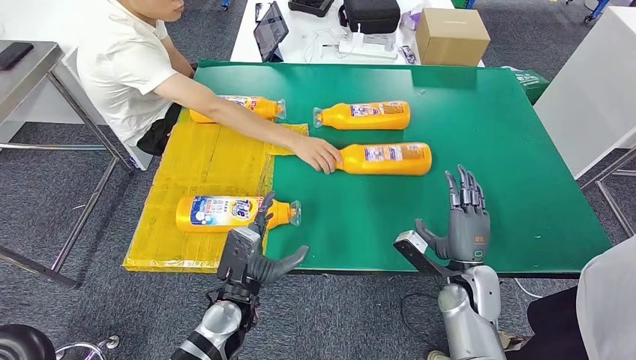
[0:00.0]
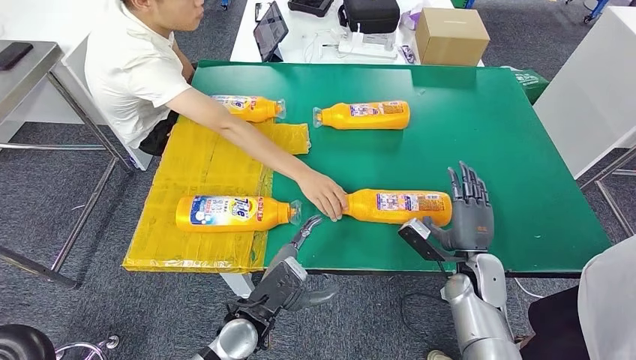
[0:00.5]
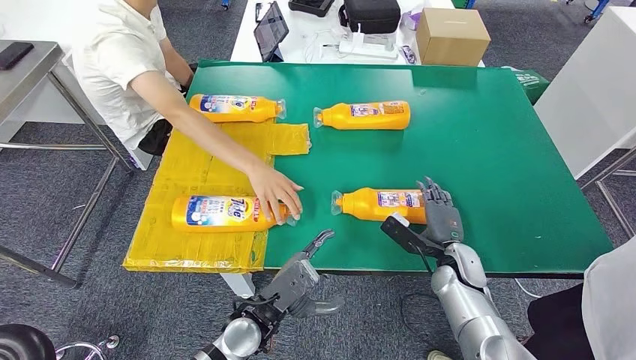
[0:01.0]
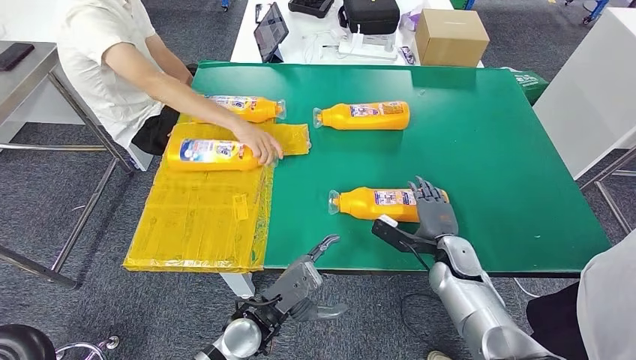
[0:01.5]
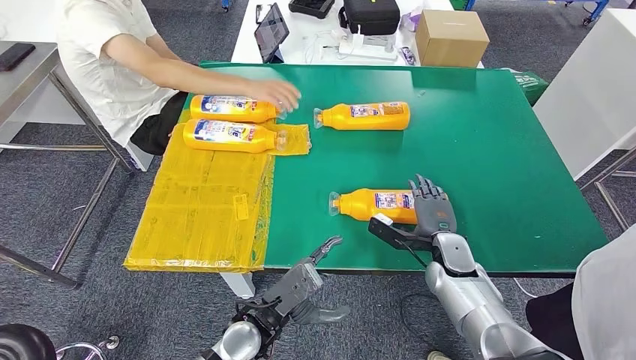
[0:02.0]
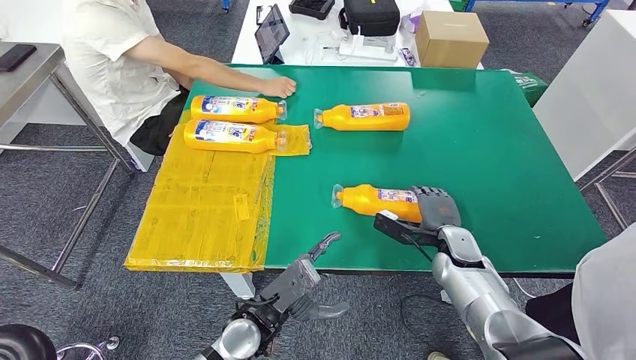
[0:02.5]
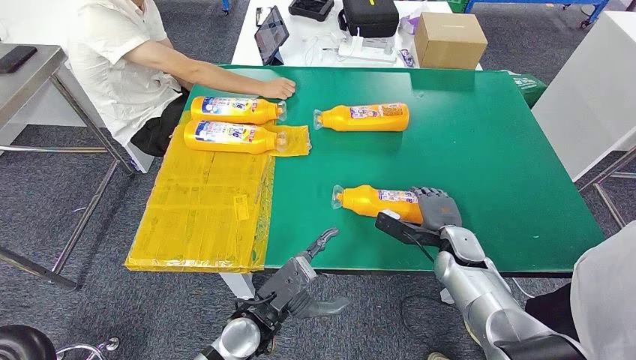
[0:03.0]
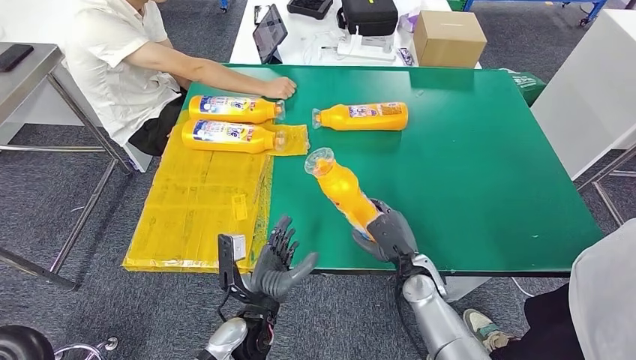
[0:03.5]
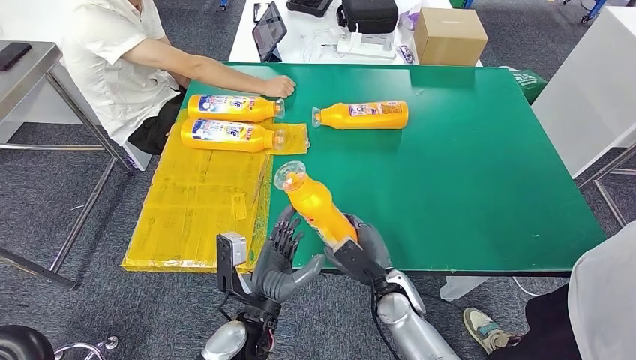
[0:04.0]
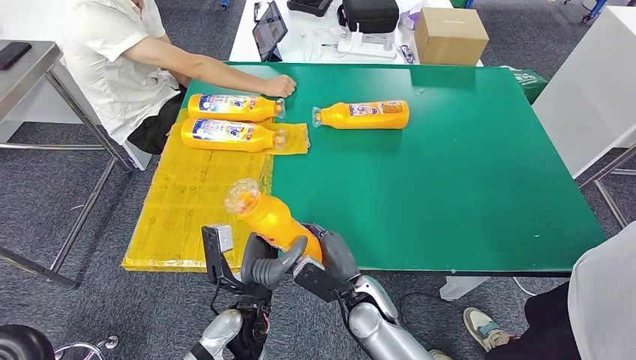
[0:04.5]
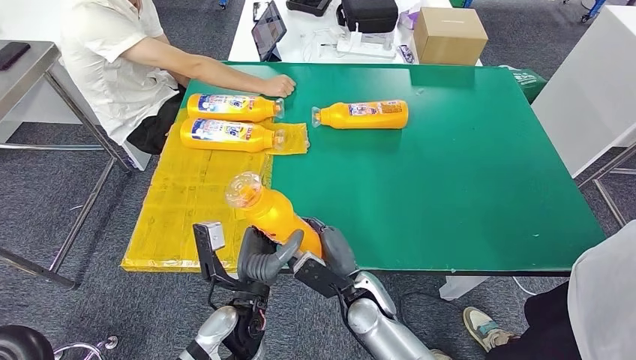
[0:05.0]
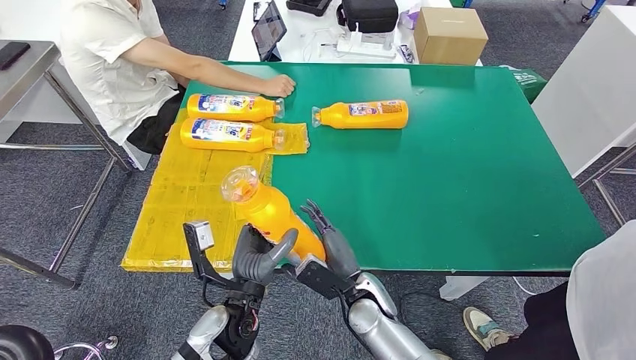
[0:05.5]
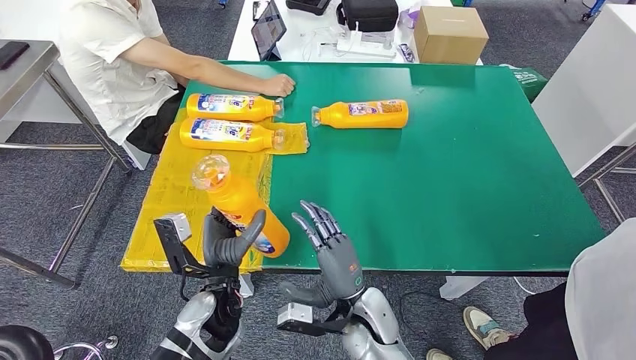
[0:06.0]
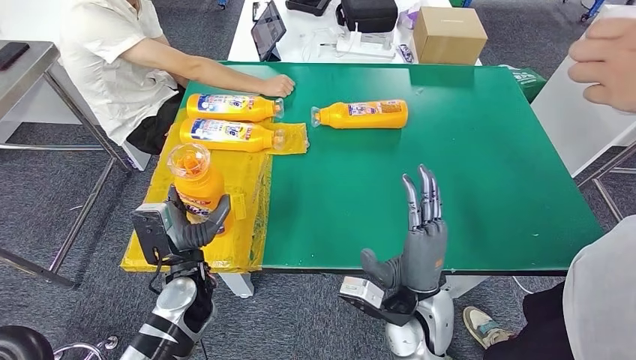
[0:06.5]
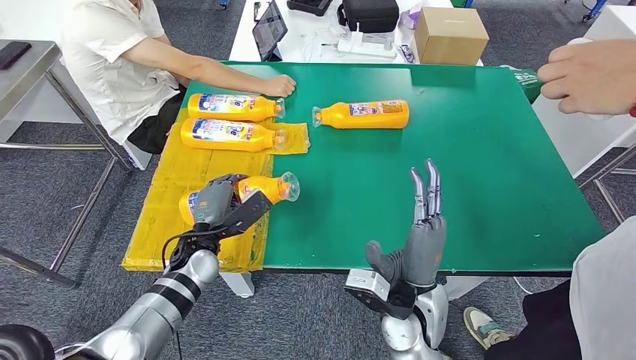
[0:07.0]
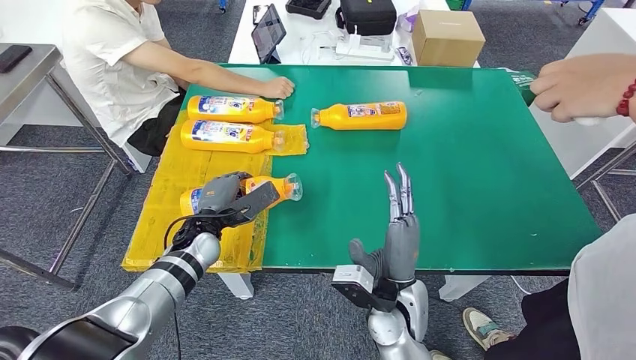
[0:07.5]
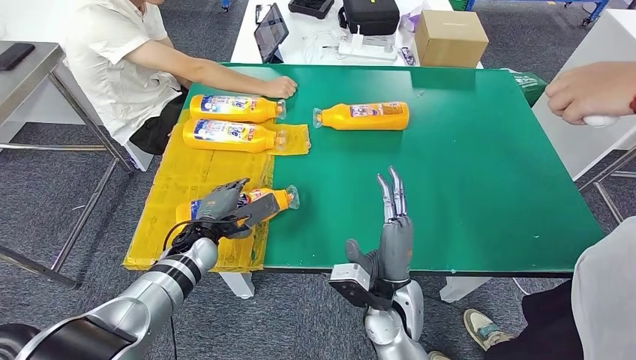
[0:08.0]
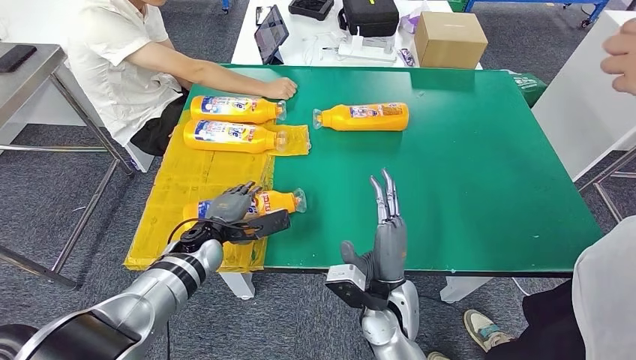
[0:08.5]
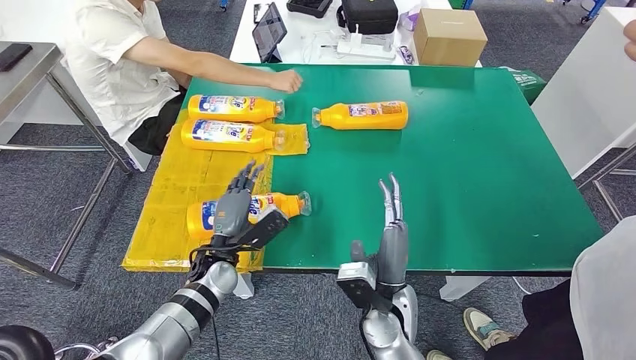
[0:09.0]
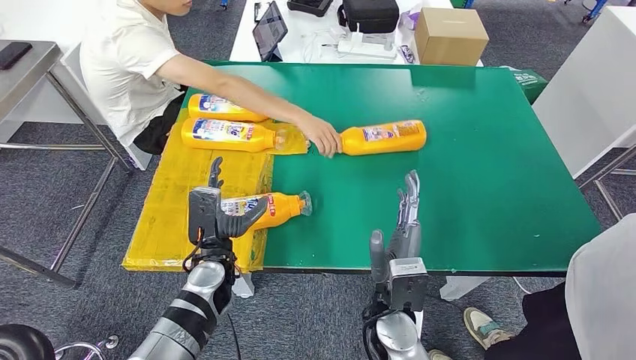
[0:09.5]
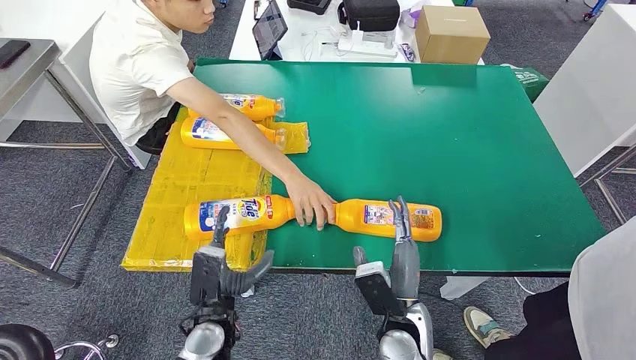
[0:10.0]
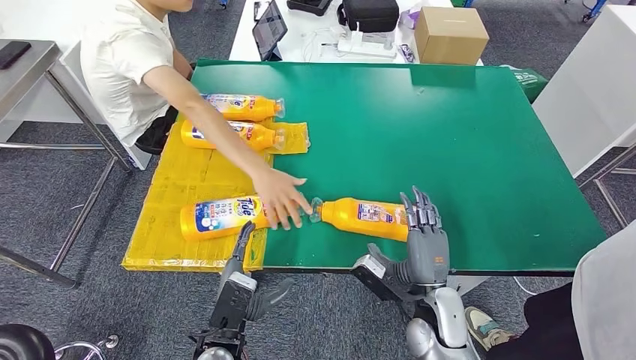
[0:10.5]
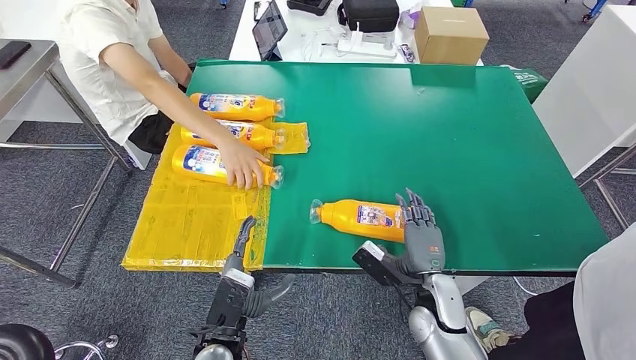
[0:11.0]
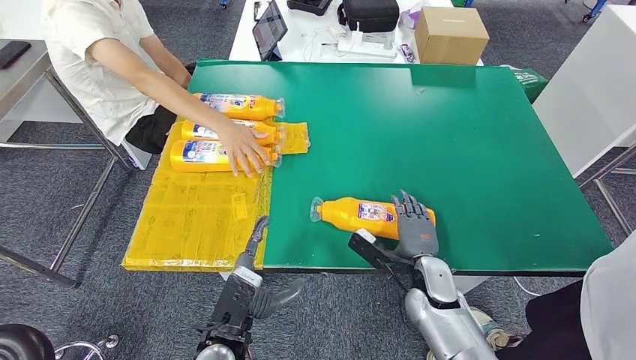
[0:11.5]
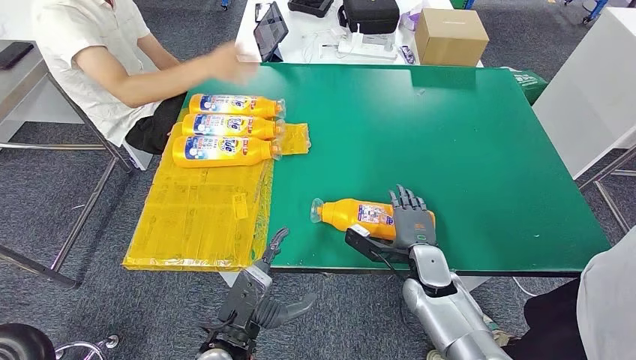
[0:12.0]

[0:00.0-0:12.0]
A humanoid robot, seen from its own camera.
Step, 0:00.0 to 0:05.5: Pick up the bottle from the table.
Step, 0:06.0 to 0:09.5: Flip the bottle to face forward.
0:04.0 to 0:06.0: Both hands travel together to the left, some 5 cm.

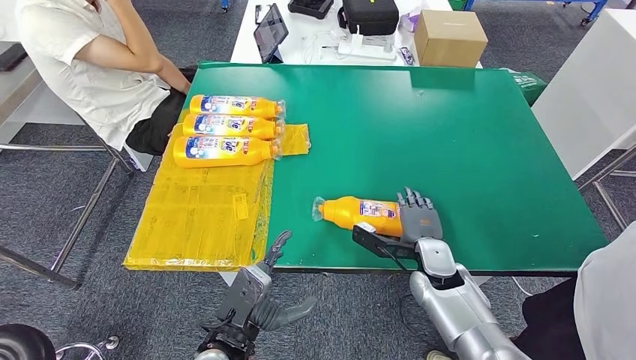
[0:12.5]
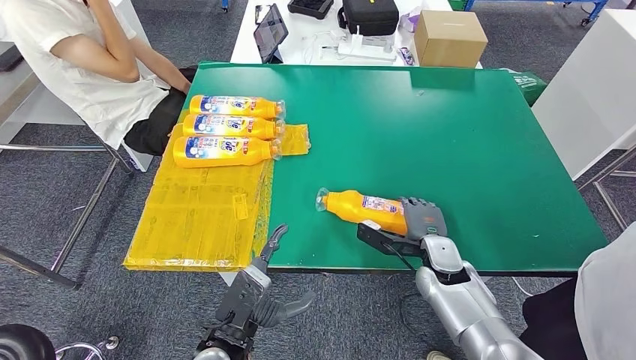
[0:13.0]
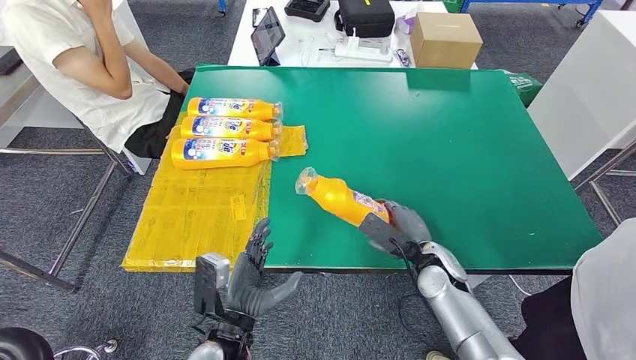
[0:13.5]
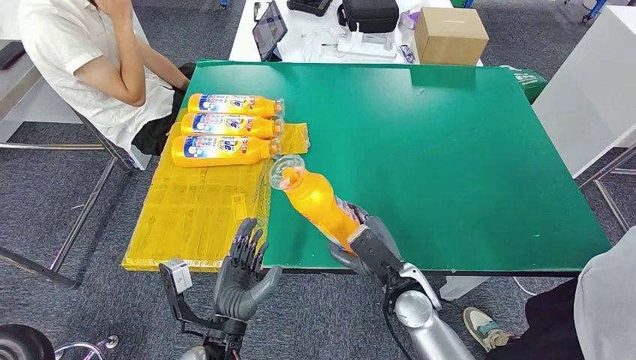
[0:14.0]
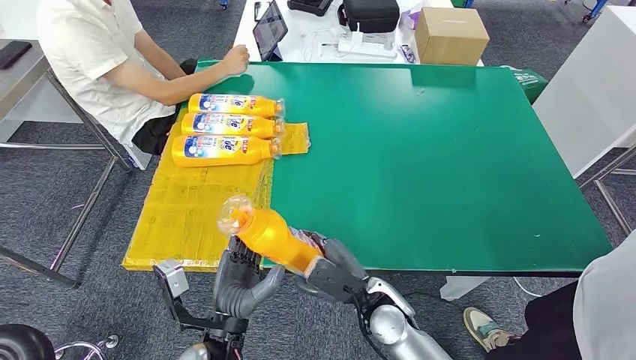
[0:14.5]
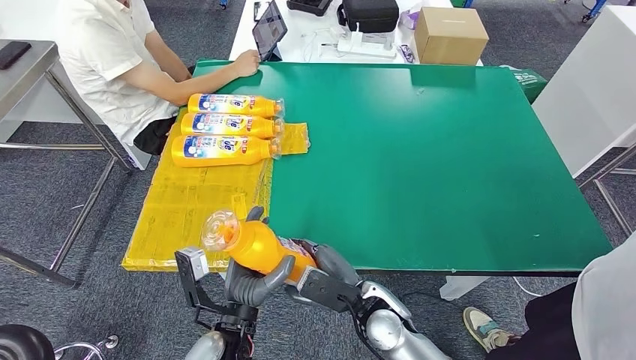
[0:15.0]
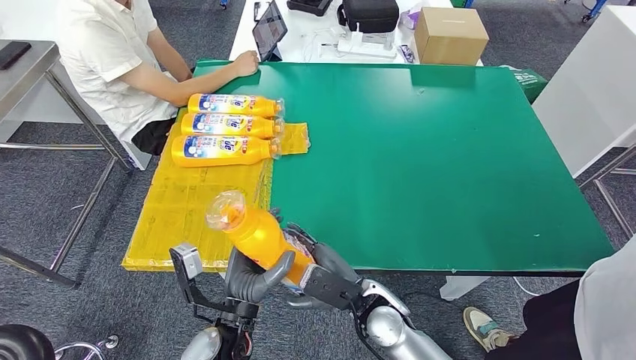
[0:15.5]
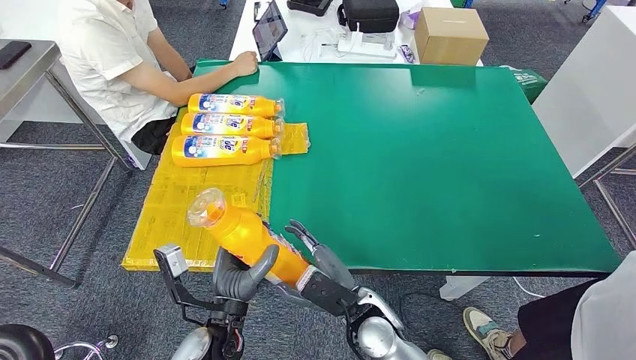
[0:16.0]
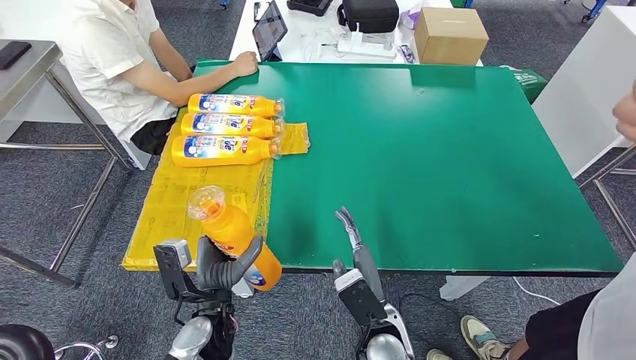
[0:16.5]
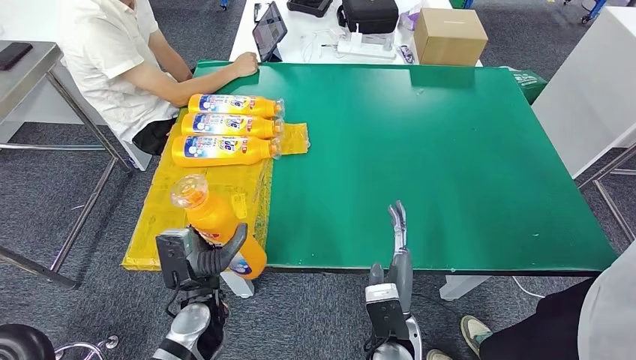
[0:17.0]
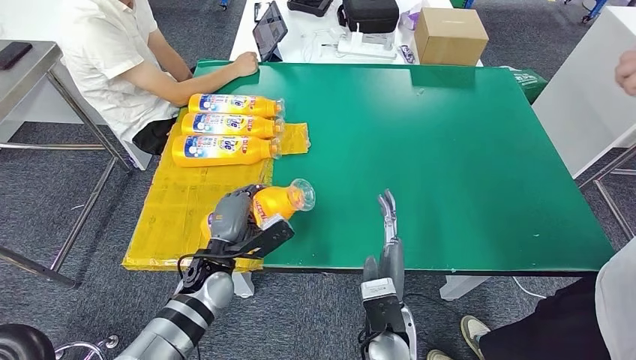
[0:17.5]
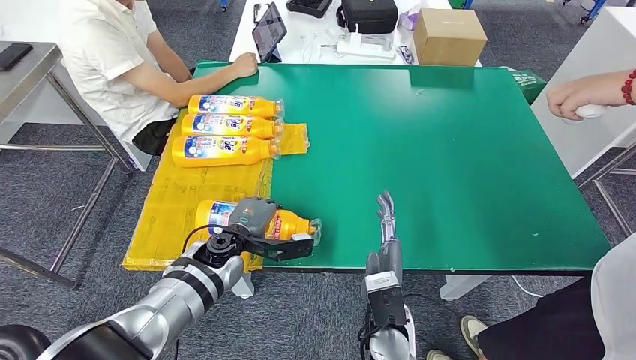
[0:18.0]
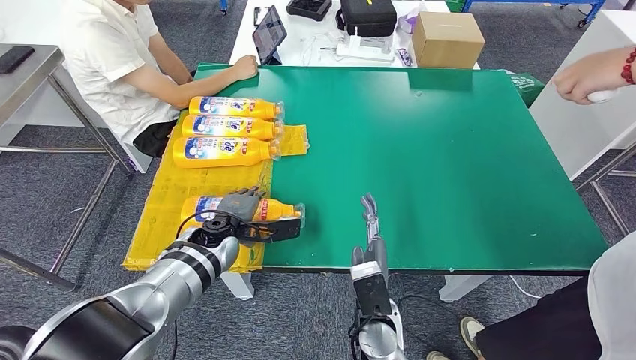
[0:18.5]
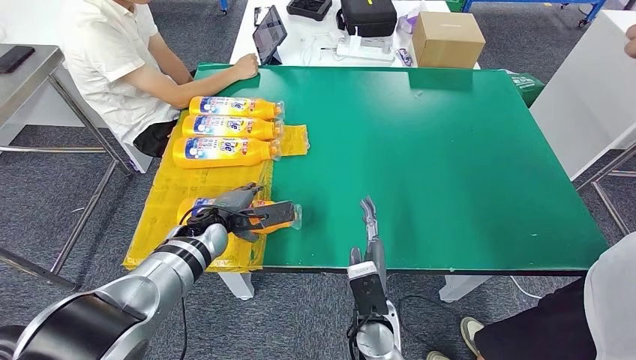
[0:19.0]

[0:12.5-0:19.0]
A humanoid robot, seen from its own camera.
Step, 0:12.5 to 0:14.5: Pick up the bottle from the table.
Step, 0:15.0 to 0:19.0: Flip the bottle to face forward.
0:14.5 to 0:17.0: The right hand moves backward, some 5 cm. The left hand heads forward, covering some 5 cm.
0:17.0 to 0:19.0: The left hand is displaced forward by some 15 cm.

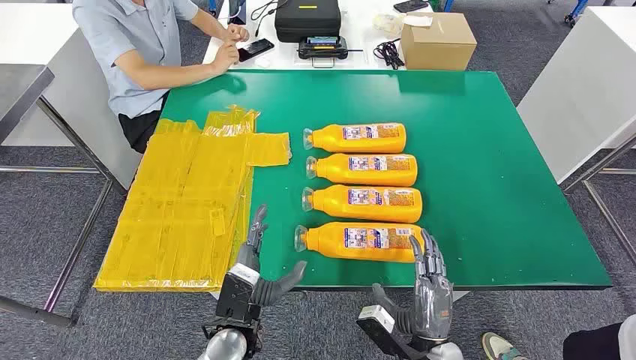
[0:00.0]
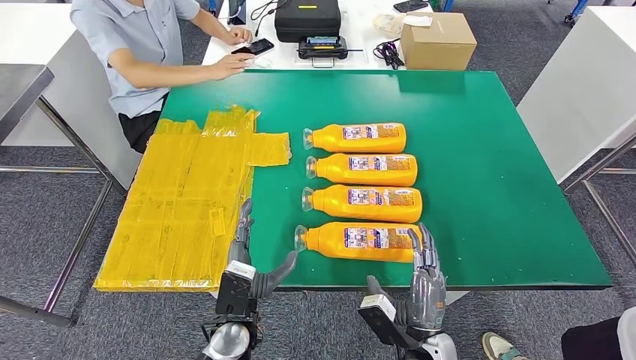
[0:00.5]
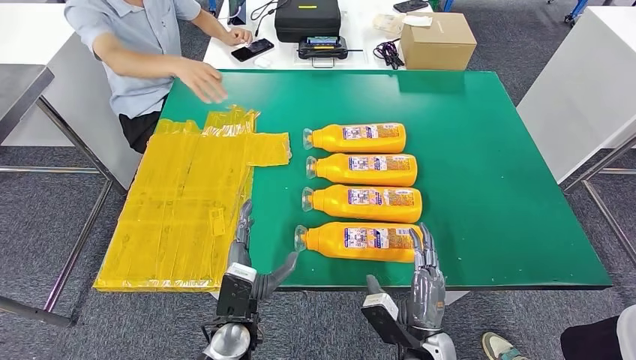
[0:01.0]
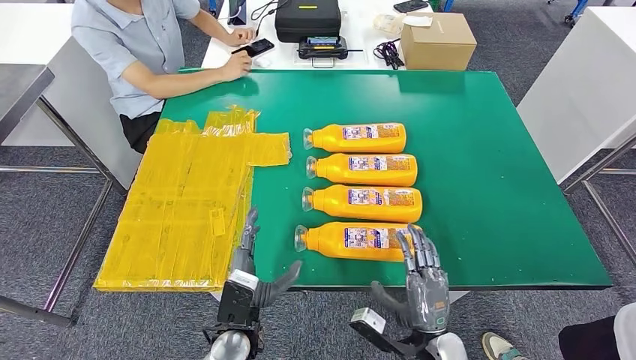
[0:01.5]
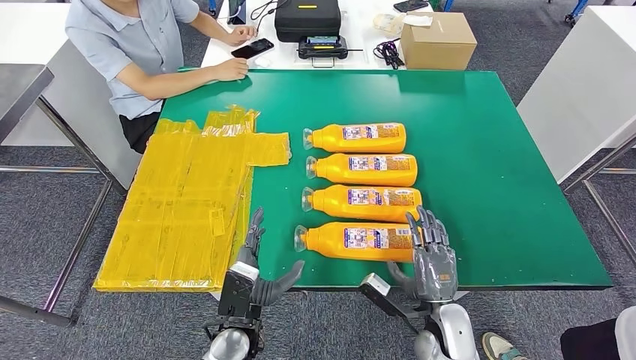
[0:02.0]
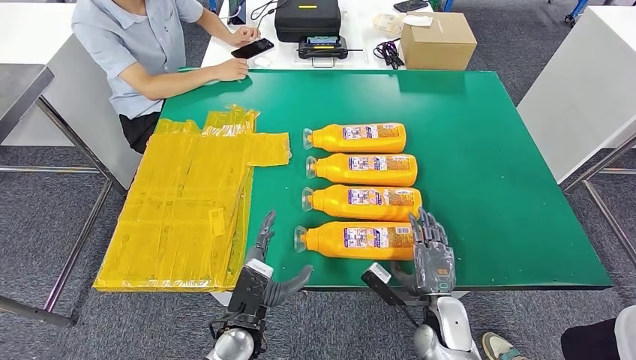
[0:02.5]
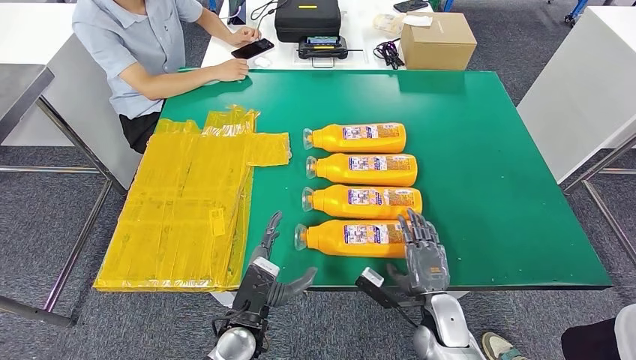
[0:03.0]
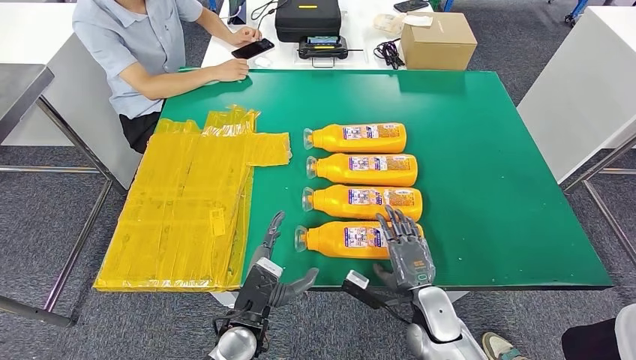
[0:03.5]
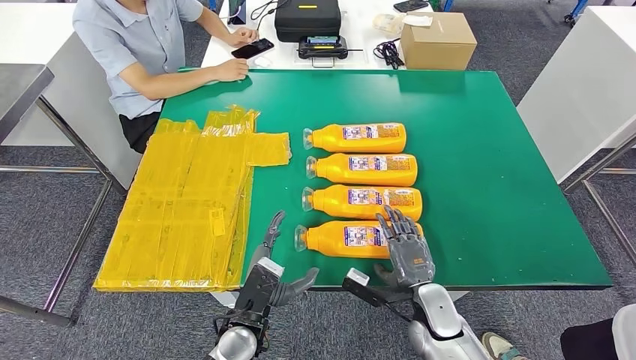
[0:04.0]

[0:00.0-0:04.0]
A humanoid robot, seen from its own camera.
0:02.0 to 0:04.0: The hands move only a little.
